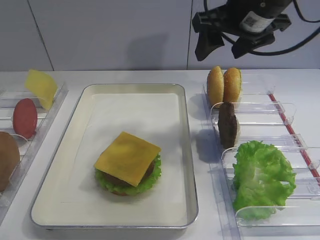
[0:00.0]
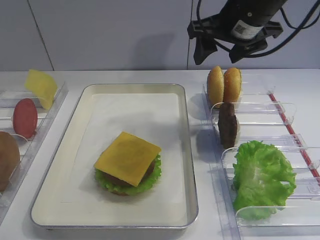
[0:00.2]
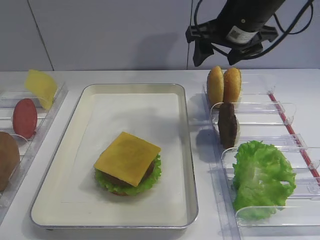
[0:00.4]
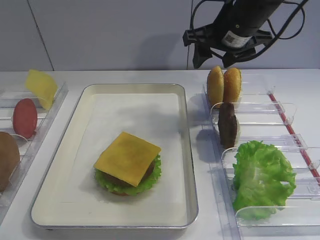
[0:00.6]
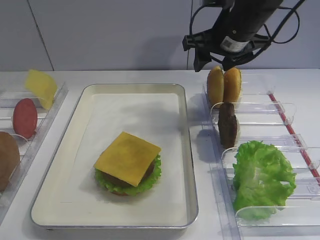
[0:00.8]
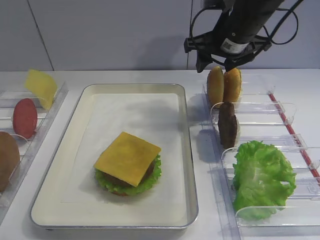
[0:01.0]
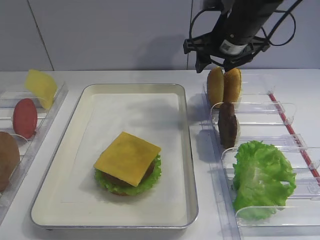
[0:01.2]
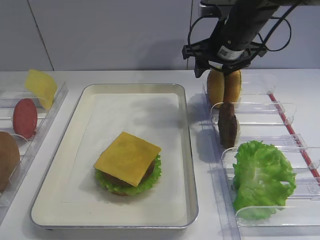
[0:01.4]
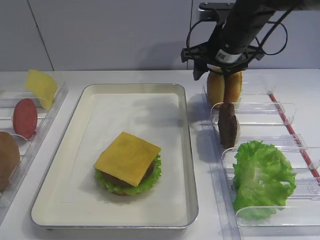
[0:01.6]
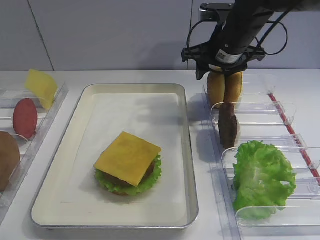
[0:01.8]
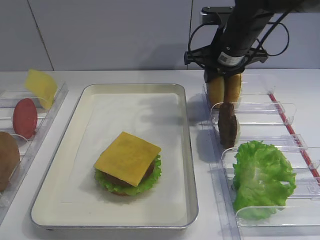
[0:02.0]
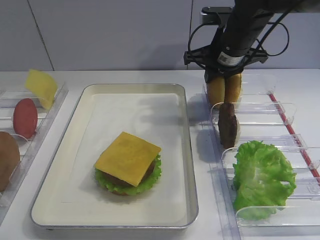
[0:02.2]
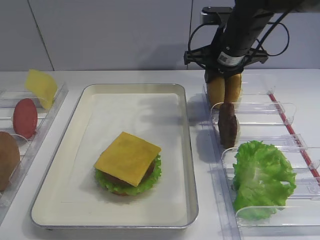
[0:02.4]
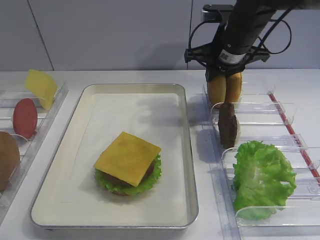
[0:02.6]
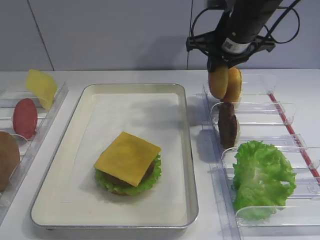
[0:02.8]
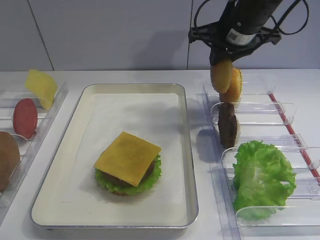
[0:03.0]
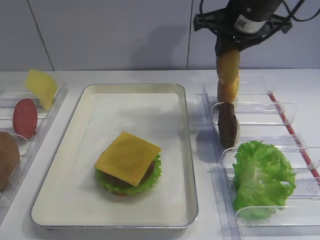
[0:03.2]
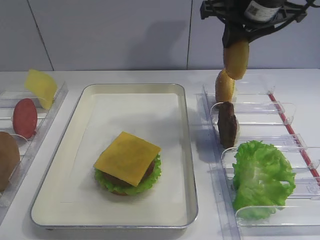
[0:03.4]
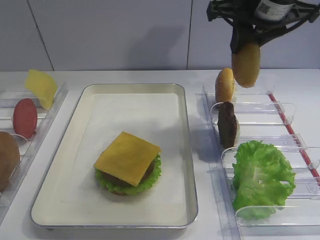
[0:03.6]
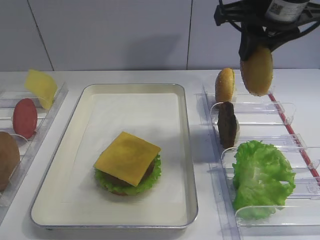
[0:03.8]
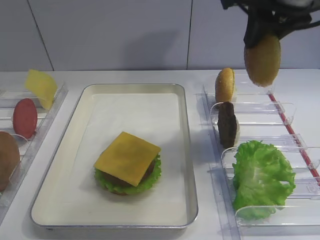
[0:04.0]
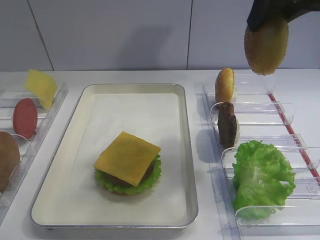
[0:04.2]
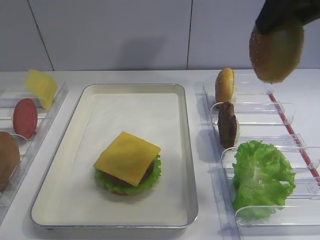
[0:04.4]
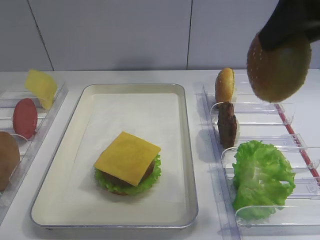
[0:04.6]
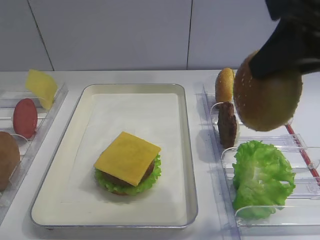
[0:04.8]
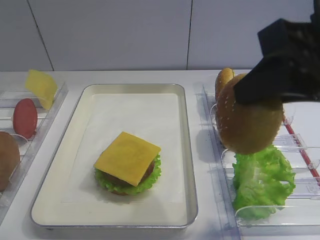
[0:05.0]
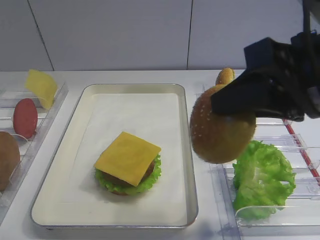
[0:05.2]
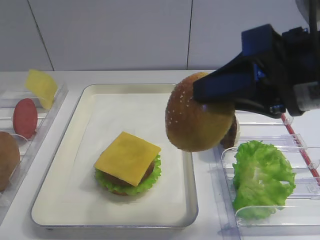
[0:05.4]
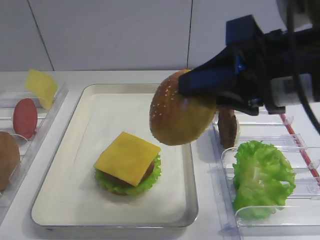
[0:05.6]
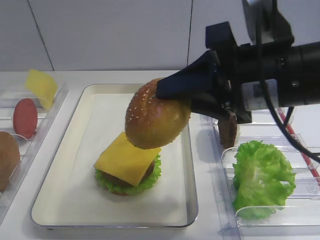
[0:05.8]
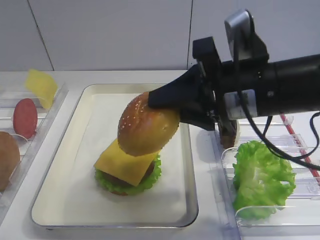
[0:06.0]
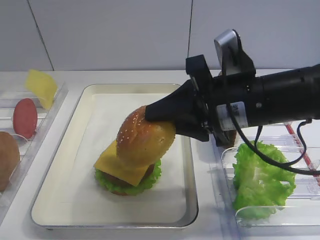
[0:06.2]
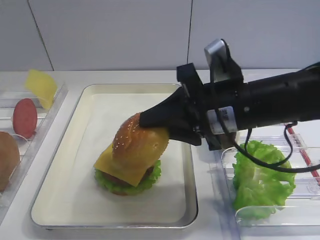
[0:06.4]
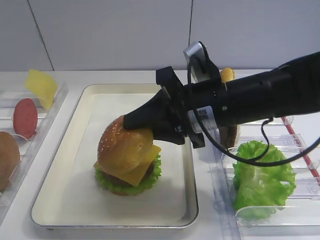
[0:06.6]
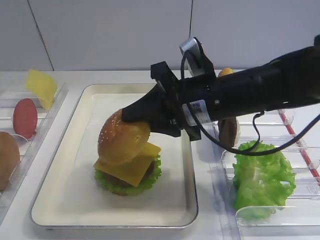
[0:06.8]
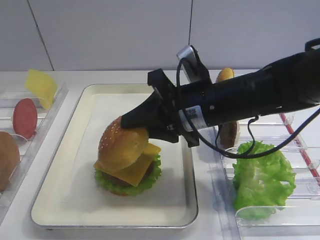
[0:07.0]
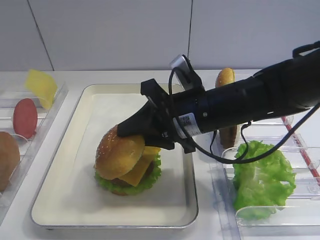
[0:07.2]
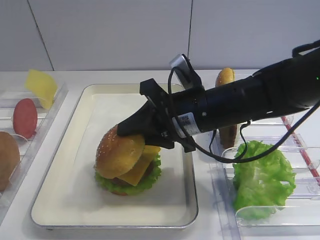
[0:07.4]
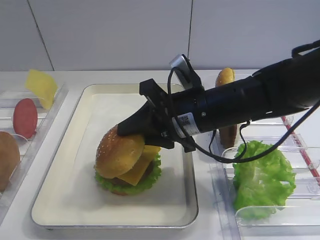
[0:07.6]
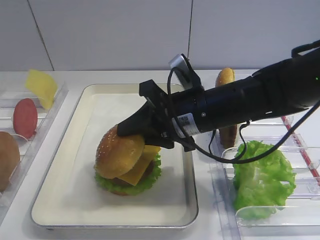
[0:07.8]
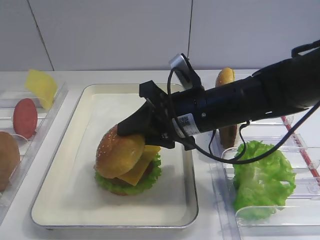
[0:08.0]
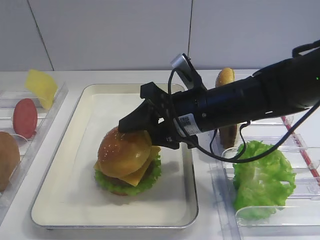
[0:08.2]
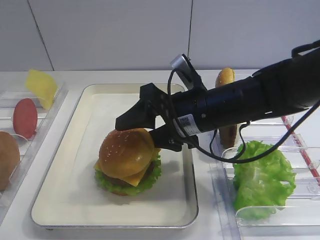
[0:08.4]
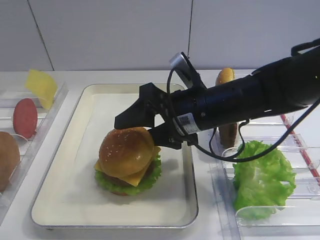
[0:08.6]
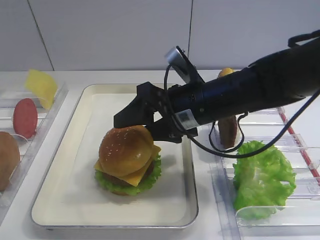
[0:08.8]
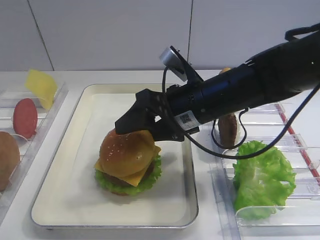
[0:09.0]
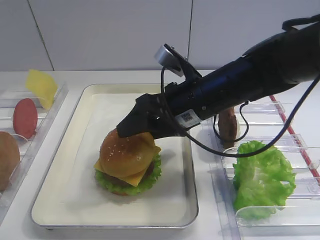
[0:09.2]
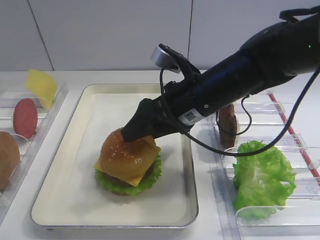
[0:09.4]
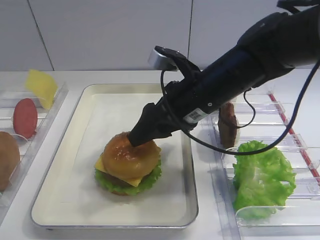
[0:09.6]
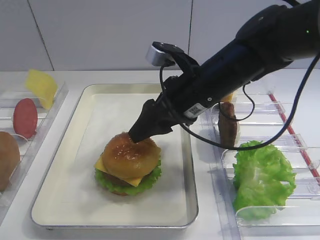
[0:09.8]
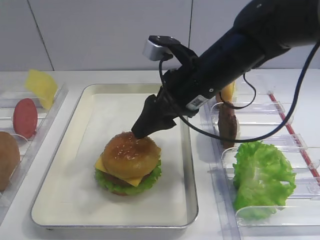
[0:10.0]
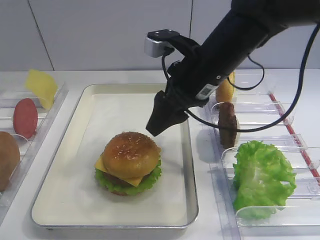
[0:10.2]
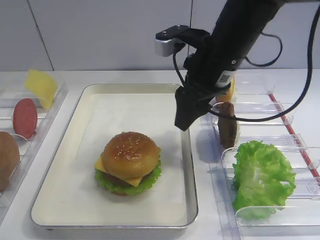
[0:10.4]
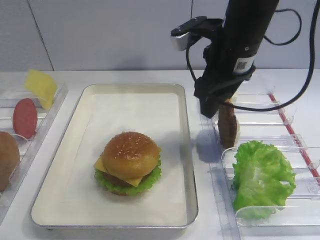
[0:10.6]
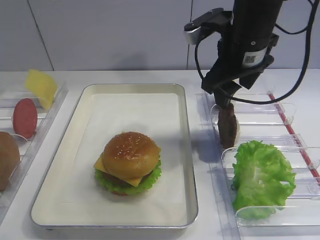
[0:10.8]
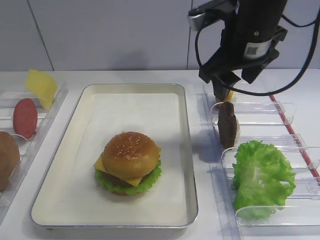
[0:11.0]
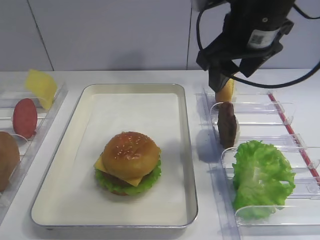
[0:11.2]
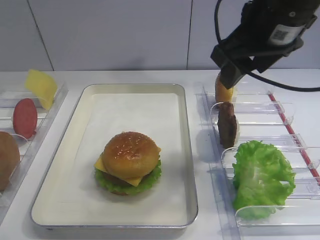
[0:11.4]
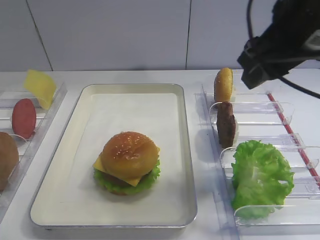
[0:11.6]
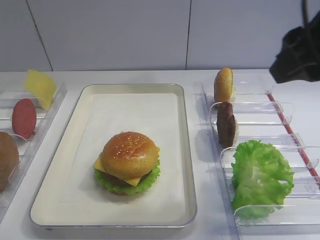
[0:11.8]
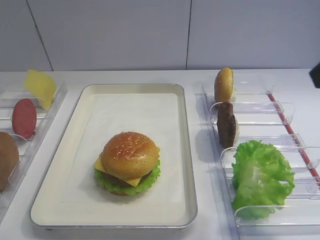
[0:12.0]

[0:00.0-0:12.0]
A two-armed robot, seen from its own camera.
Step, 0.0 to 3.0 s: Pick up the hamburger lid with the right gripper.
Step, 3.2 to 10.2 s: Place the hamburger lid on the cheese slice with the right gripper.
0.0 to 1.6 s: The right gripper shifts approximately 10 cm downward and forward.
1.6 to 3.0 s: The right gripper closes.
3.0 to 4.4 s: The right gripper goes roughly 20 cm backward and upward.
4.4 to 6.0 s: The right gripper travels downward by about 15 cm.
6.0 to 7.6 s: The right gripper moves downward and to the left, about 10 cm.
7.6 to 9.0 s: The right gripper opens up.
9.0 to 10.4 s: The right gripper travels upward by about 5 cm.
10.4 to 12.0 s: The right gripper shifts some 20 cm backward, to the right and upward.

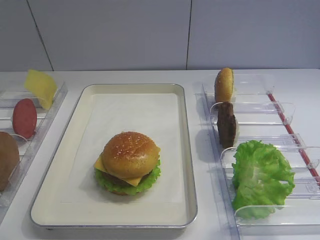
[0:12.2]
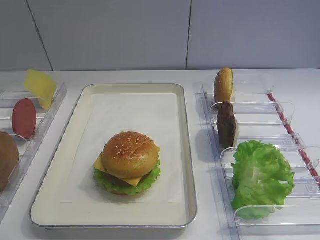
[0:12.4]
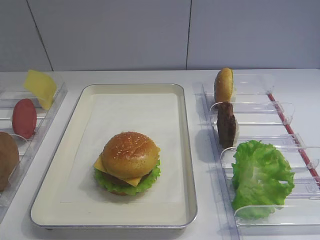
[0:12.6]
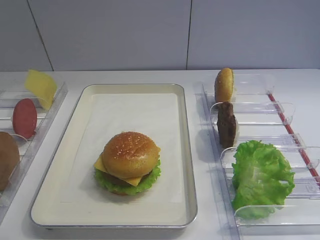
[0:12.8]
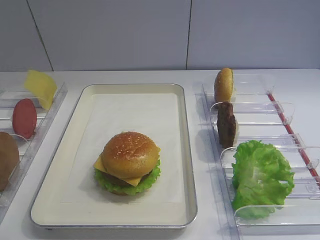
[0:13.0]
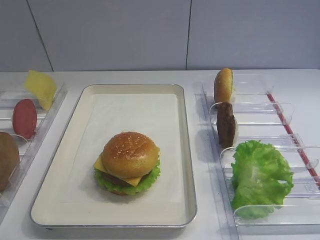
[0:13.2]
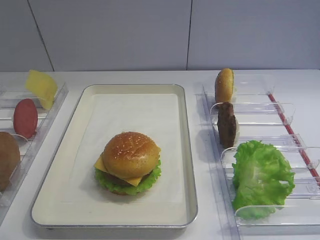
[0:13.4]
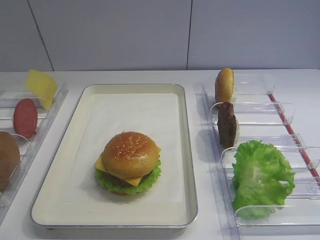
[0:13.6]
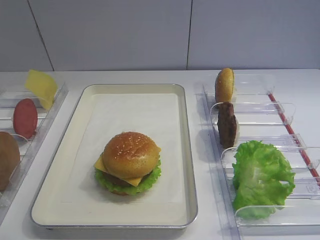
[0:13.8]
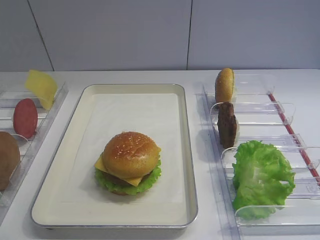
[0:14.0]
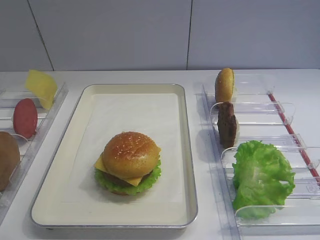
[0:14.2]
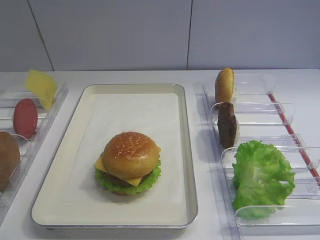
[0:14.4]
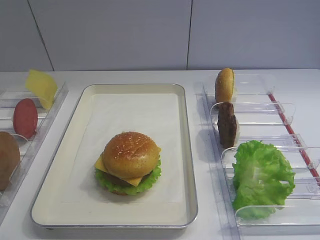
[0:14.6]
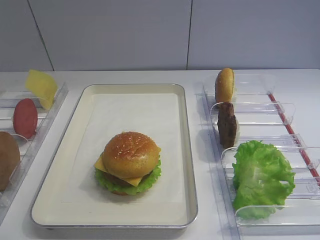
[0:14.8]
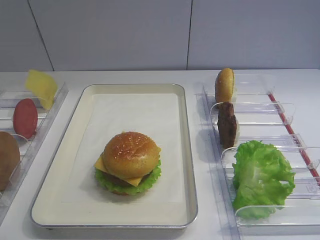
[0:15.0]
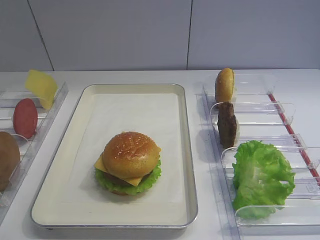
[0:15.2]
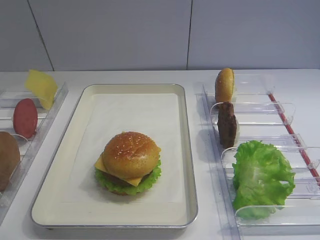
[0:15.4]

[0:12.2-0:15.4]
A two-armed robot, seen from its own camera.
13.8 to 15.4 s: Both grippers stay put.

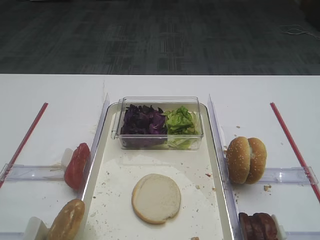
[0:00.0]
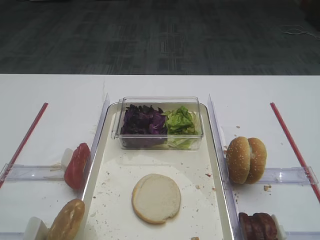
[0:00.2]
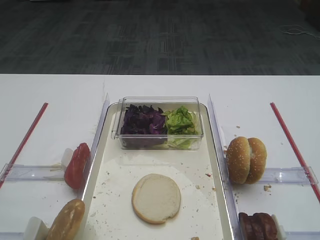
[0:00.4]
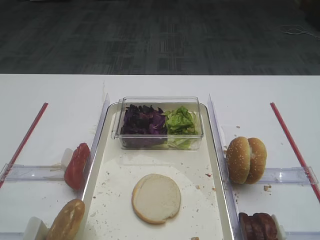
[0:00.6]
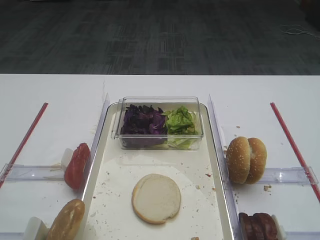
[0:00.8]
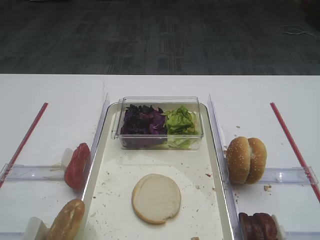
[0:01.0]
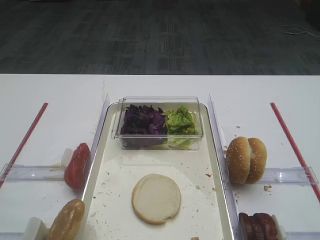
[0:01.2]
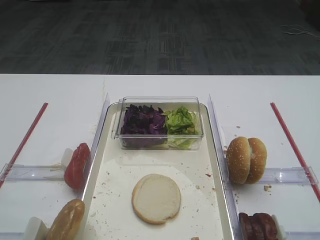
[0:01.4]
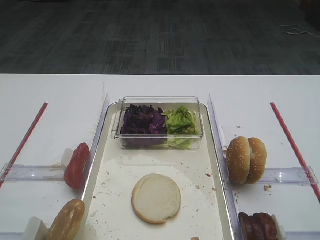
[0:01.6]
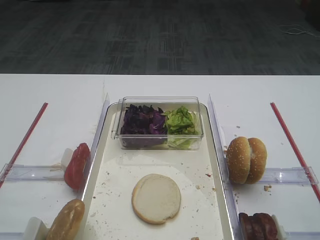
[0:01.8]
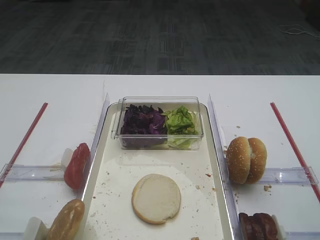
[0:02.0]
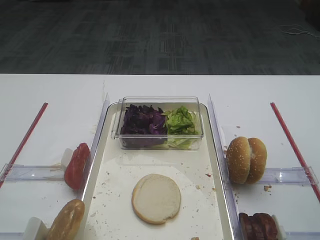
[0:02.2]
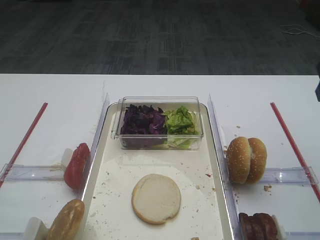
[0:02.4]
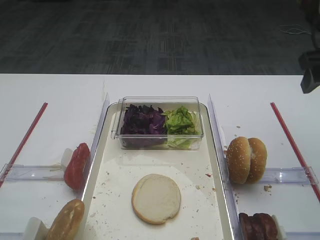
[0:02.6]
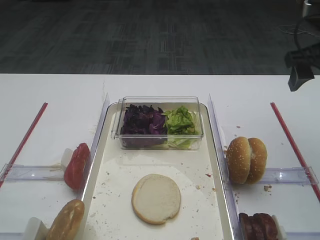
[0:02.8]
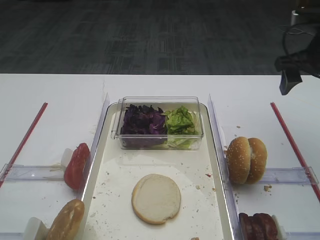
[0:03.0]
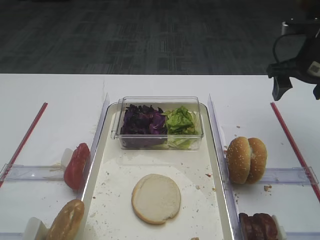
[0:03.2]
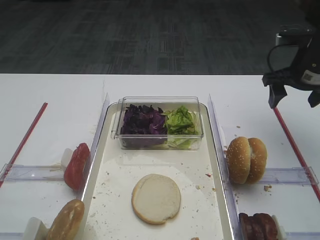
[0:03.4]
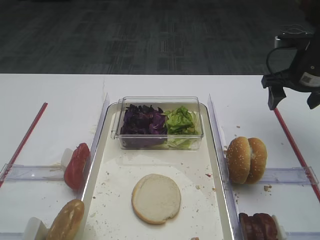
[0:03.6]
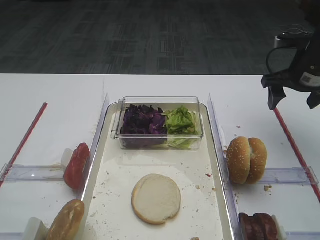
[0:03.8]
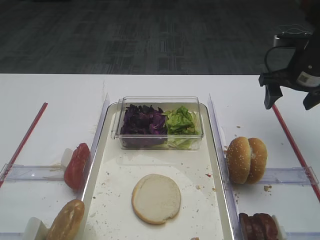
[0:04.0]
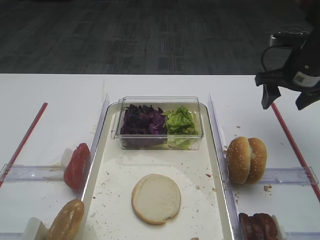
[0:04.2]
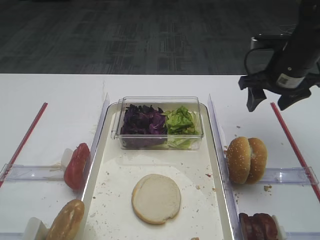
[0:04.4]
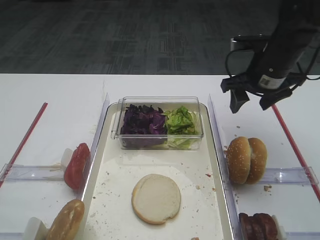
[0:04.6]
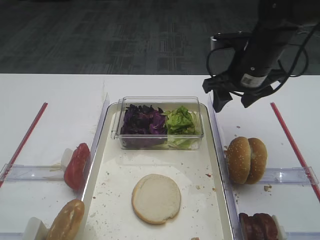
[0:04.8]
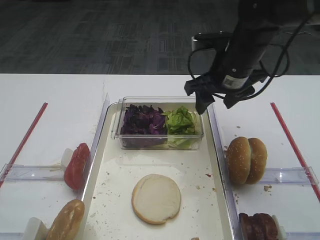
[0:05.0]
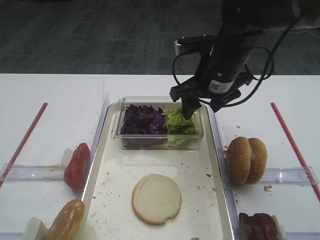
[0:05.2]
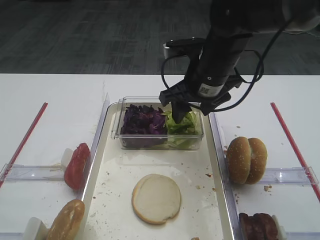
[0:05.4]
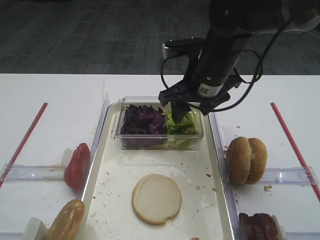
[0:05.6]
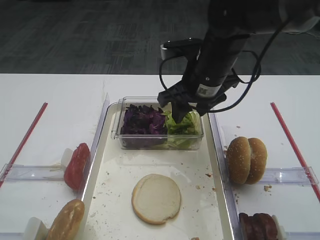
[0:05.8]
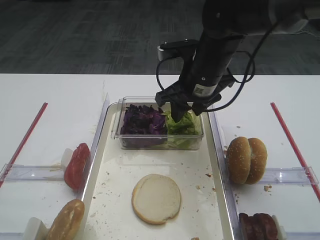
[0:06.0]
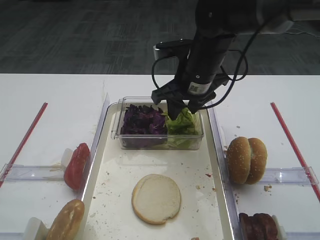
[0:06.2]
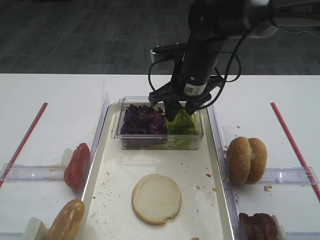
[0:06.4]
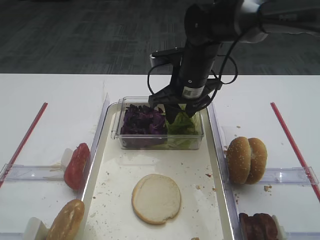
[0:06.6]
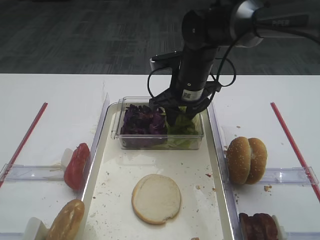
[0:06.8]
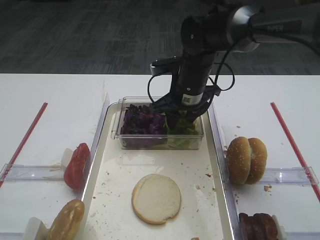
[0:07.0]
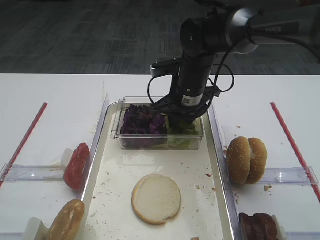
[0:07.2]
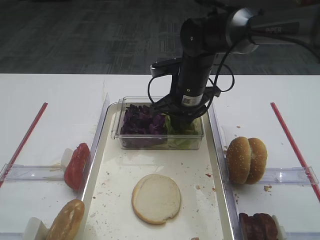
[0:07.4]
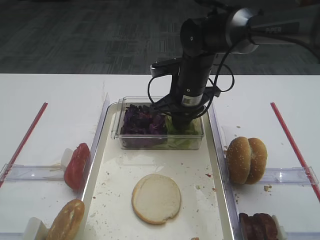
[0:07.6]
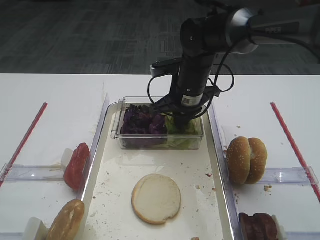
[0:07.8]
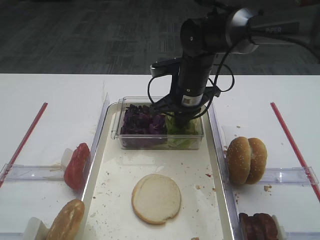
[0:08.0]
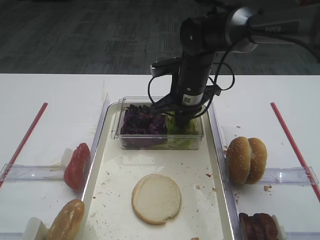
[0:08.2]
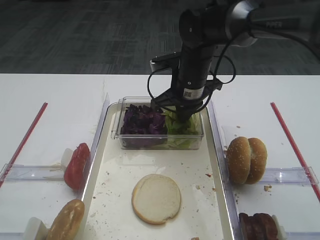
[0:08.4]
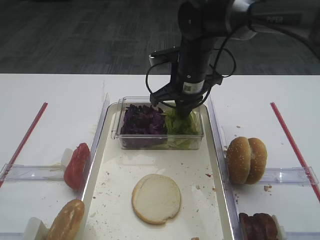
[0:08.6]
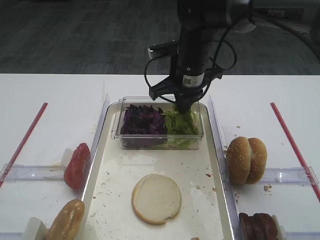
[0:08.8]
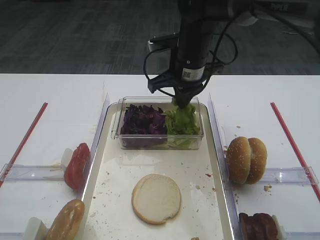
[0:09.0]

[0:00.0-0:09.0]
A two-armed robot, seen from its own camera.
1.6 to 3.0 s: The right gripper goes approximately 30 cm forward.
3.0 to 4.4 s: The right gripper travels downward by about 5 cm.
4.4 to 6.0 s: The right gripper travels to the left by approximately 15 cm.
6.0 to 7.6 s: The right gripper shifts by some 5 cm.
7.6 to 9.0 s: The right gripper is displaced upward by about 5 cm.
